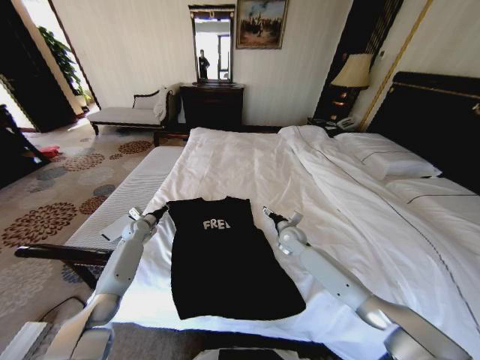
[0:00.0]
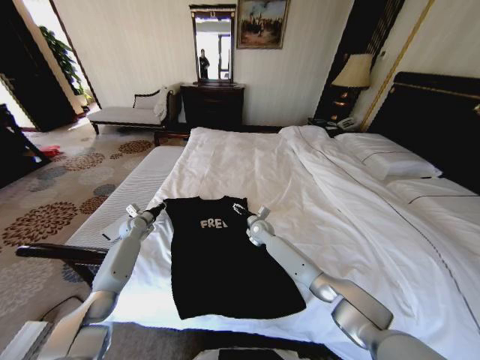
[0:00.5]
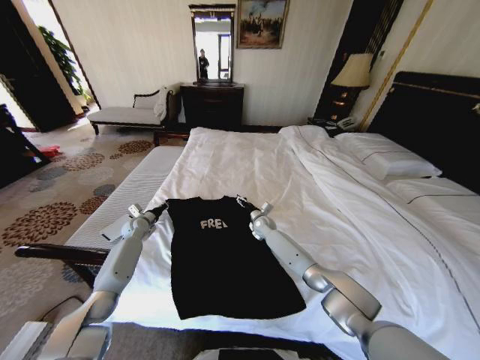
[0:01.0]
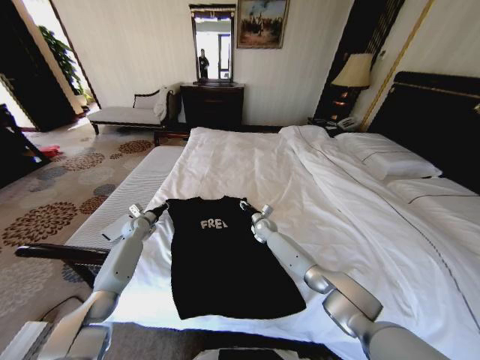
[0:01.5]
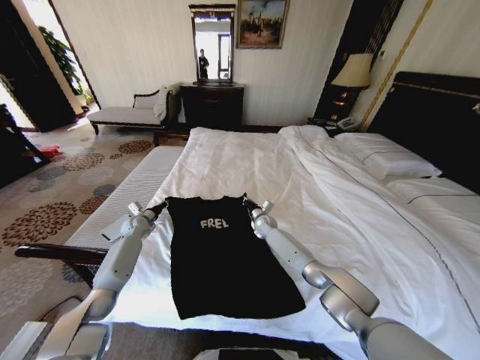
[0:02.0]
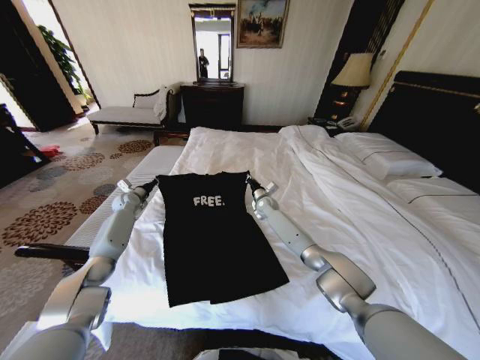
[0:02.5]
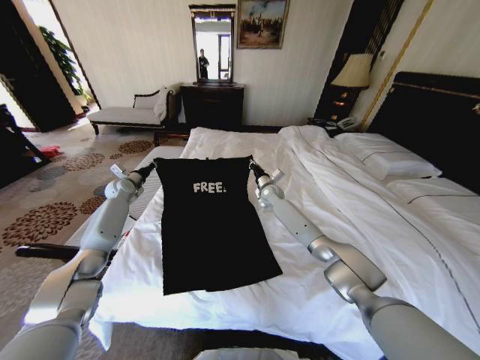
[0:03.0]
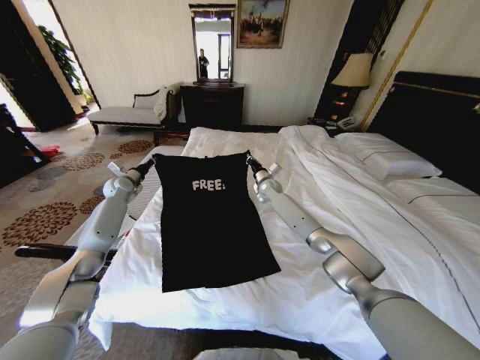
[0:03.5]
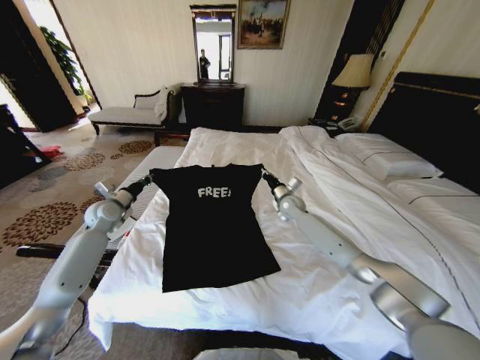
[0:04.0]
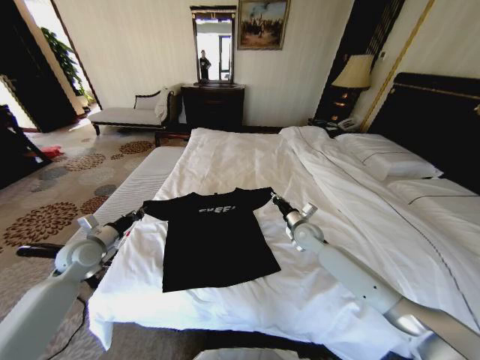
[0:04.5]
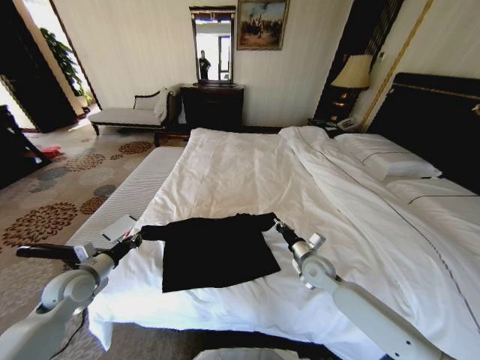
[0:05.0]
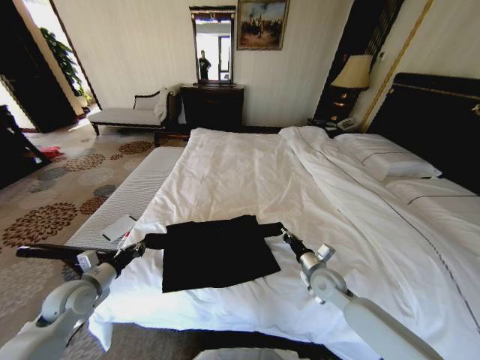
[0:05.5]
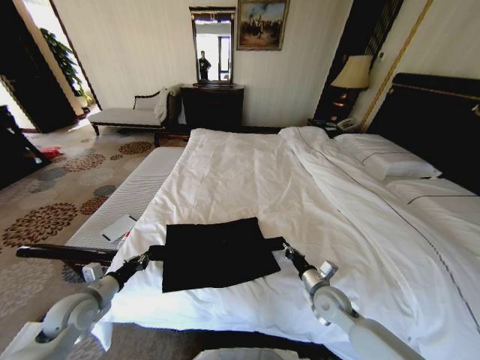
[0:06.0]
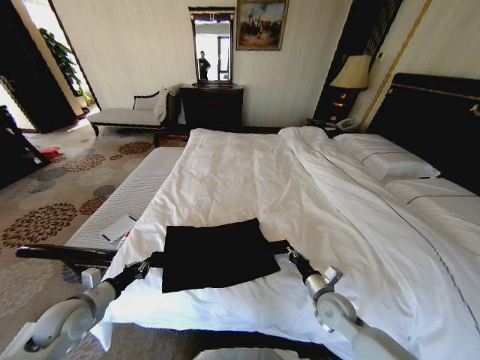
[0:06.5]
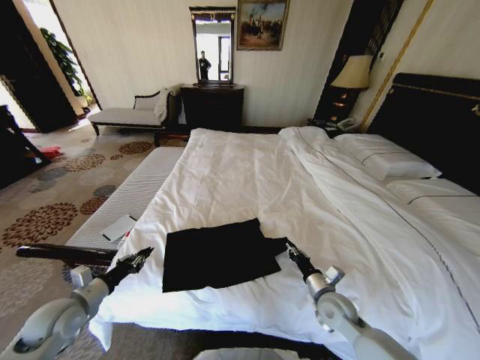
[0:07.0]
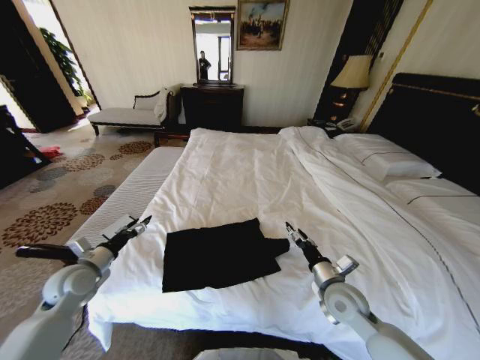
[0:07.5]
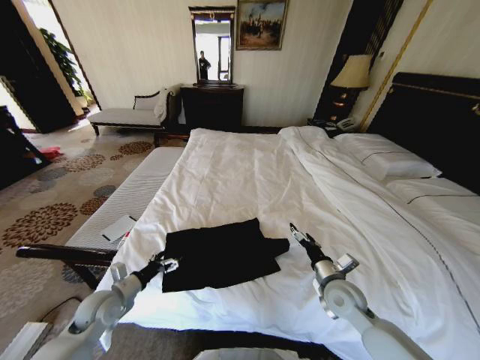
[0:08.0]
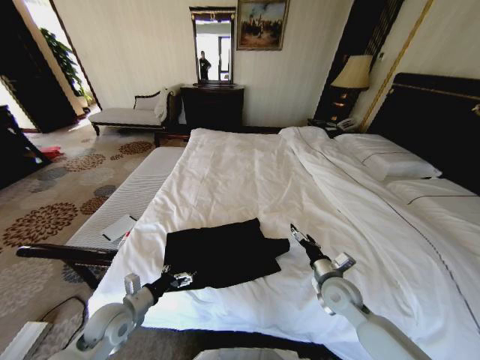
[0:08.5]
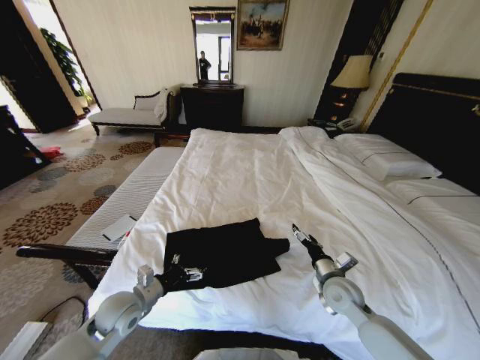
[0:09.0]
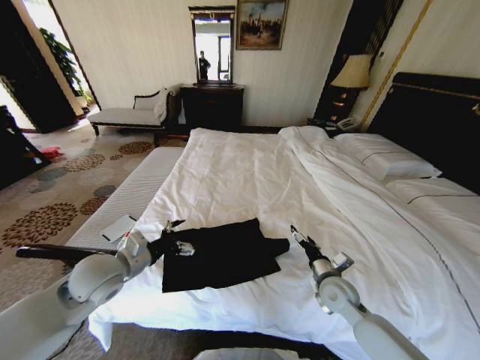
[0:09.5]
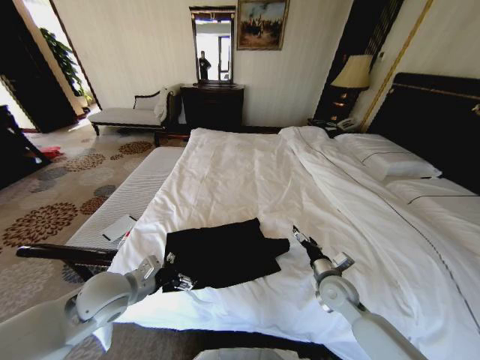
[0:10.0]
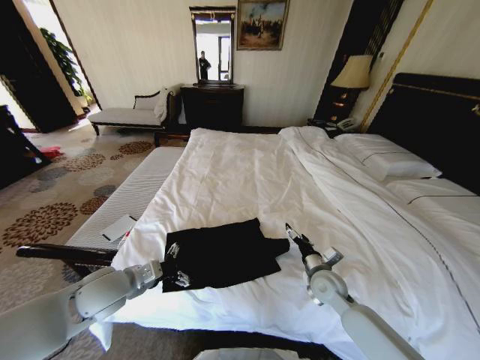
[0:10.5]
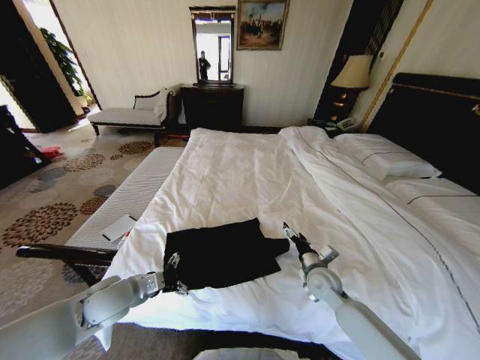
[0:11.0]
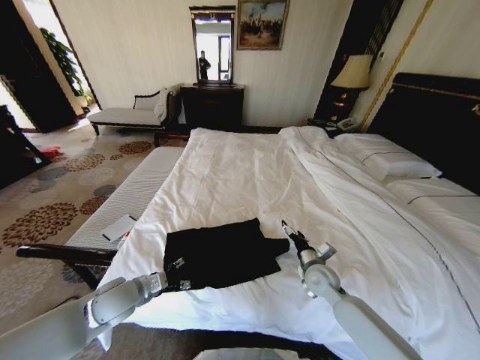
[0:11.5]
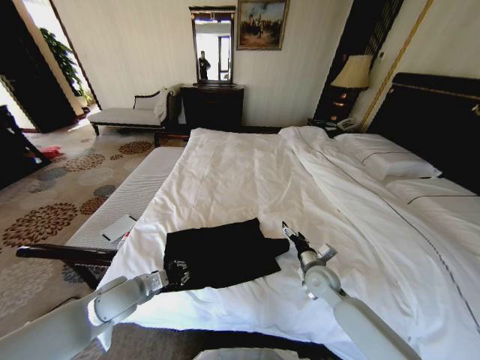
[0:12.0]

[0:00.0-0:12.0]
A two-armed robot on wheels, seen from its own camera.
Task of the whole recording: Fold the clothes on the bed.
0:00.0 to 0:02.0: The right gripper travels forward and to the left by some 15 cm, and closes.
0:02.0 to 0:04.0: The right gripper shifts roughly 15 cm upward and to the right, while the left gripper goes some 15 cm upward and backward.
0:04.0 to 0:06.0: The right gripper travels backward by roughly 30 cm; the left gripper goes approximately 25 cm backward and downward.
0:06.0 to 0:08.0: The left gripper shifts by roughly 5 cm, and opens its fingers. Meanwhile the right gripper travels upward by about 5 cm, and opens.
0:08.0 to 0:10.0: The left gripper shifts some 15 cm upward and to the right.
0:10.0 to 0:12.0: The left gripper shifts some 5 cm downward, and closes.

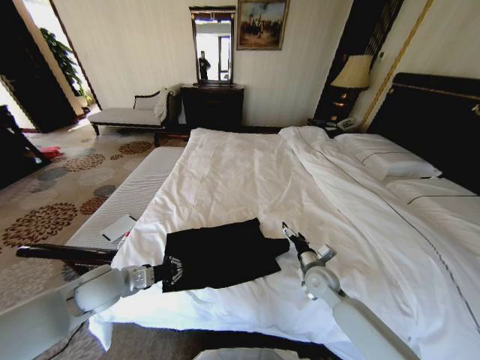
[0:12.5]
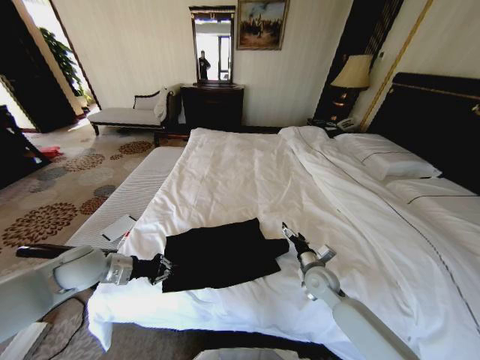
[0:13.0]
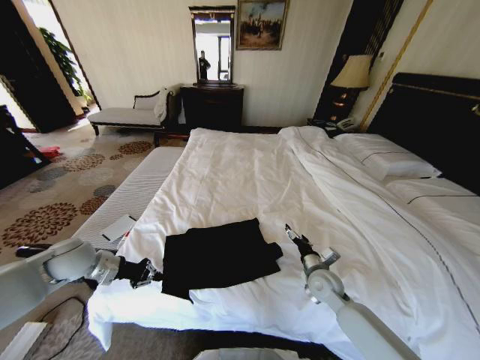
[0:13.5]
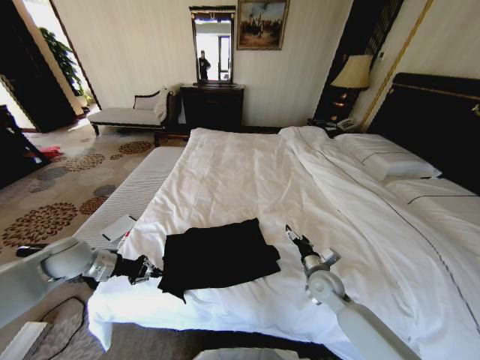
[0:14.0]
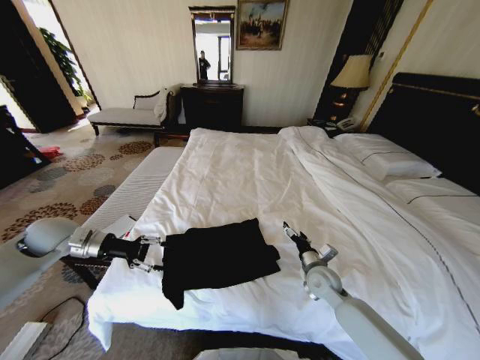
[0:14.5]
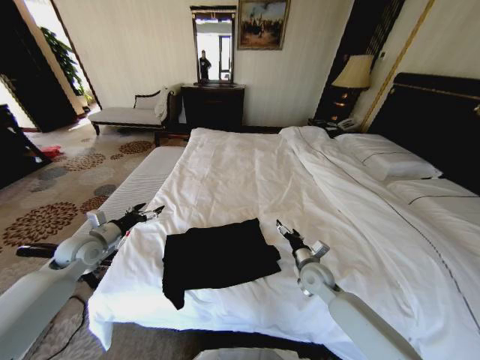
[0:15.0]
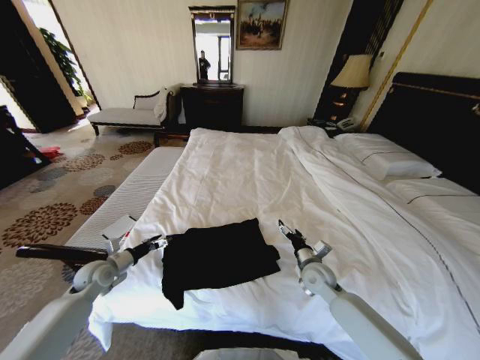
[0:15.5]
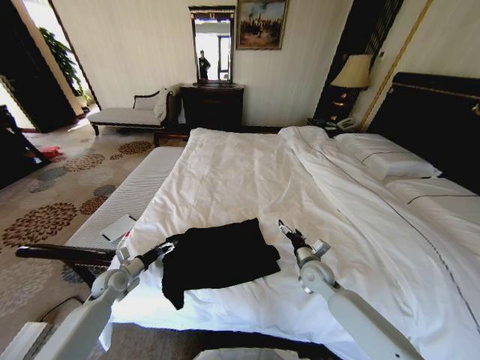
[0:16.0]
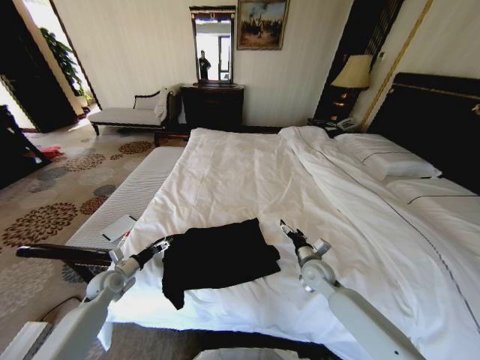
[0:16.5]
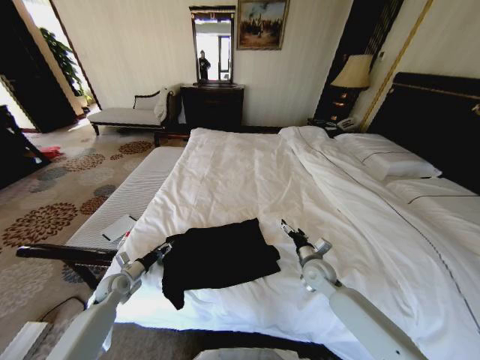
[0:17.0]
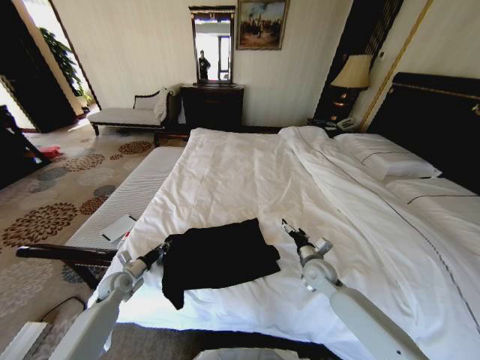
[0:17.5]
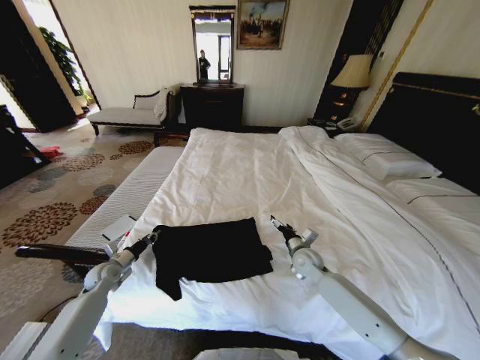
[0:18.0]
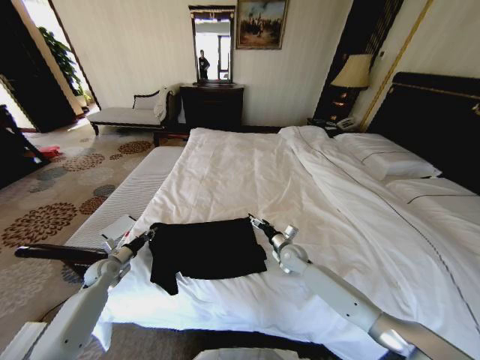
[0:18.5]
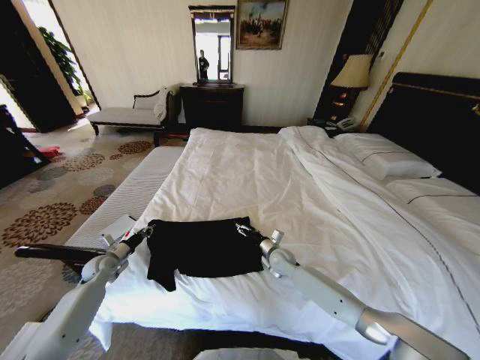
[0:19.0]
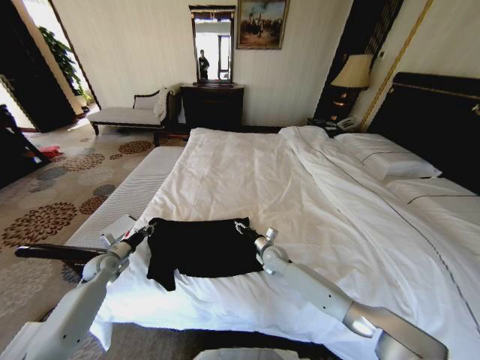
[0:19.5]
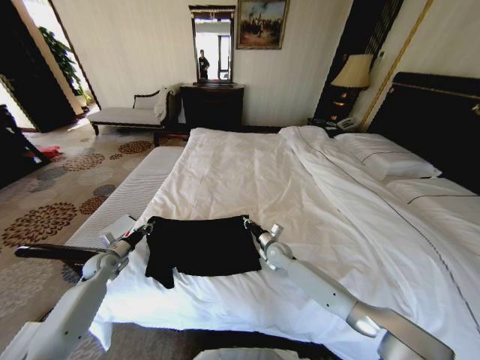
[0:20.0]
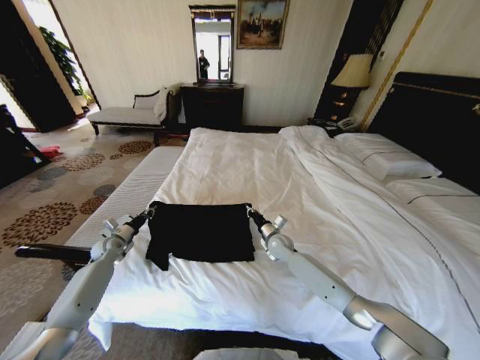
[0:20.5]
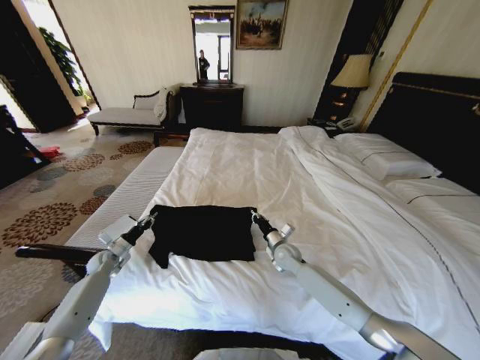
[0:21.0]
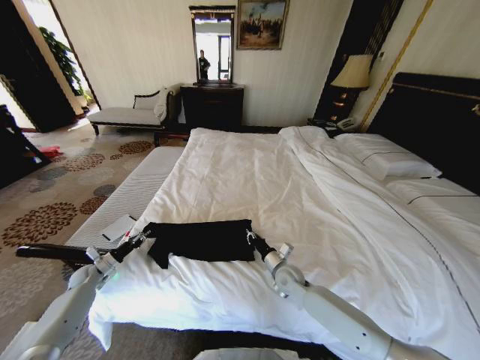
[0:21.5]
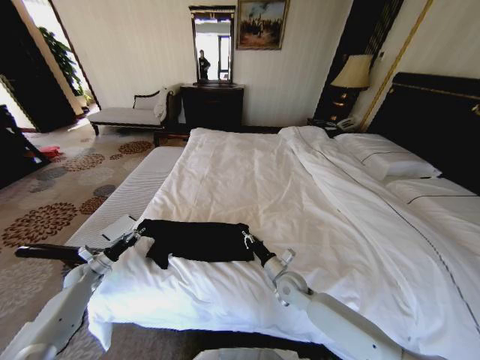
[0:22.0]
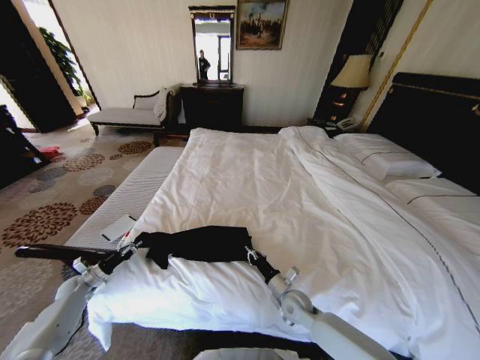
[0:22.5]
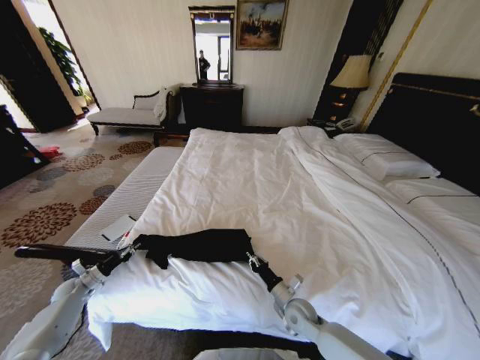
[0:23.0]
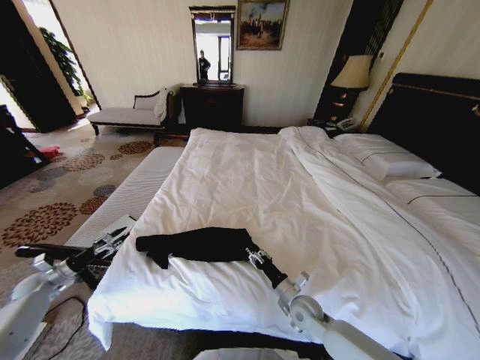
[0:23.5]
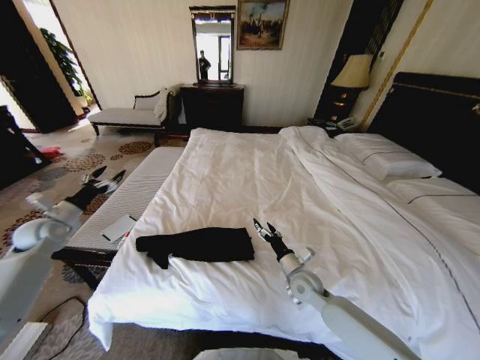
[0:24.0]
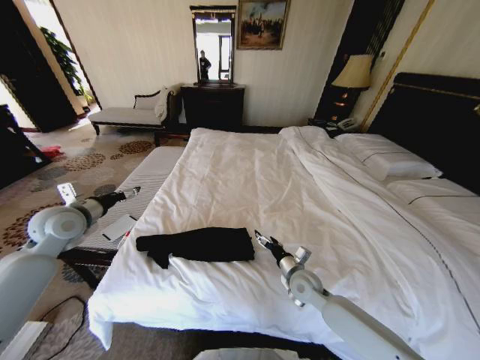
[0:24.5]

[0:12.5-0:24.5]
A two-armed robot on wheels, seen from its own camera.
Task of the whole recording: Fold the clothes on the bed.
0:12.5 to 0:14.5: The left gripper goes roughly 15 cm to the left, forward and upward, and opens up.
0:14.5 to 0:16.5: The left gripper moves downward, approximately 20 cm, and opens up.
0:16.5 to 0:18.5: The right gripper heads forward, covering about 10 cm. The left gripper closes up.
0:18.5 to 0:20.5: The right gripper ends up some 5 cm from where it was, and closes. The left gripper is displaced forward by about 5 cm.
0:20.5 to 0:22.5: The left gripper travels to the left, downward and backward by roughly 20 cm; the right gripper travels backward by roughly 20 cm.
0:22.5 to 0:24.5: The left gripper goes roughly 40 cm upward and to the right, and opens. The right gripper goes approximately 5 cm upward, and opens its fingers.

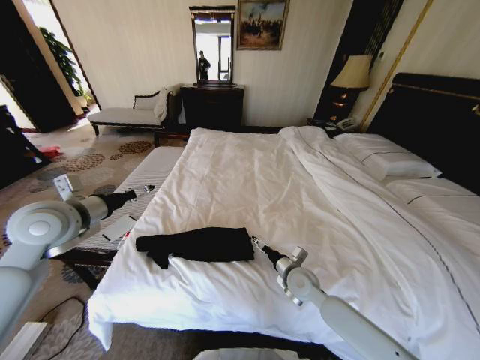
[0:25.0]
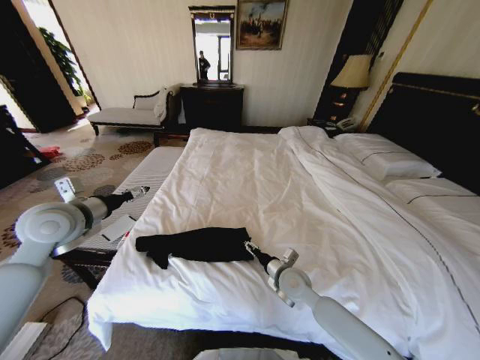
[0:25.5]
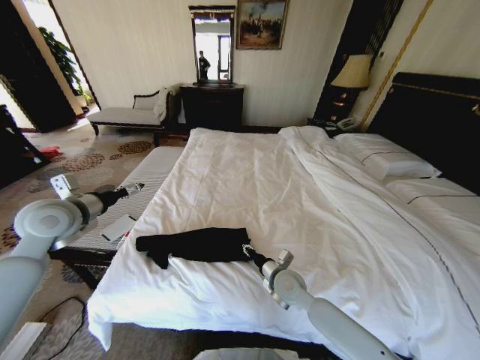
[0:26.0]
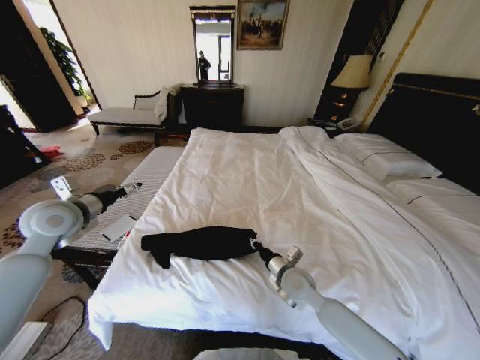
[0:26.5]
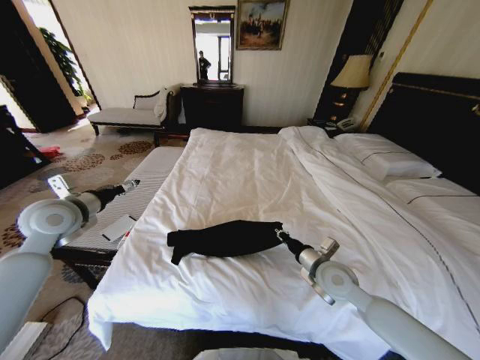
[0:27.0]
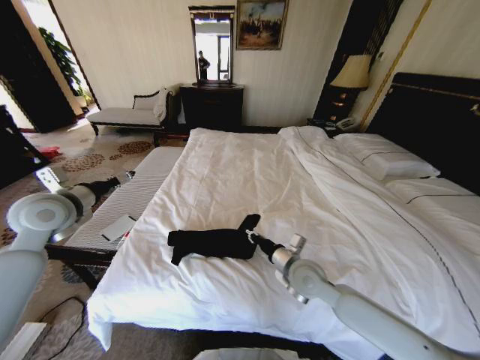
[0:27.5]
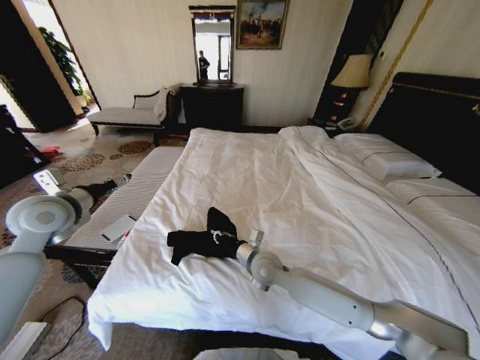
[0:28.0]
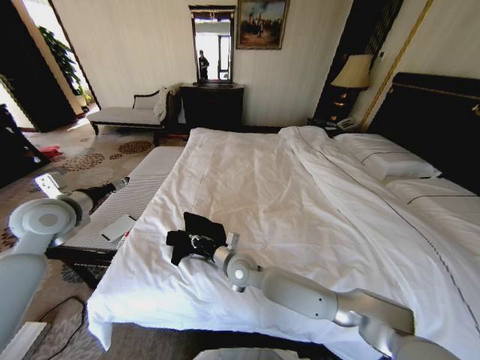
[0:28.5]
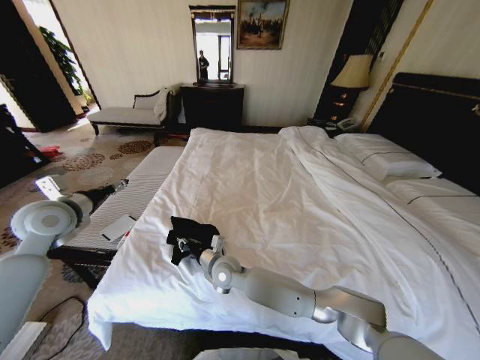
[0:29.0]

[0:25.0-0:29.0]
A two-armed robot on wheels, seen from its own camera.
Task of the whole recording: Fold the clothes on the bed.
0:25.0 to 0:27.0: The right gripper shifts roughly 10 cm upward, and closes its fingers. Meanwhile the left gripper ends up roughly 5 cm from where it was.
0:27.0 to 0:29.0: The right gripper heads to the left, covering approximately 30 cm.
